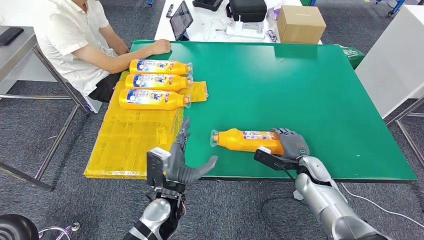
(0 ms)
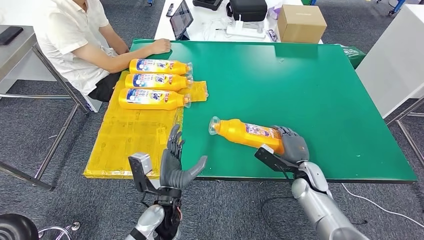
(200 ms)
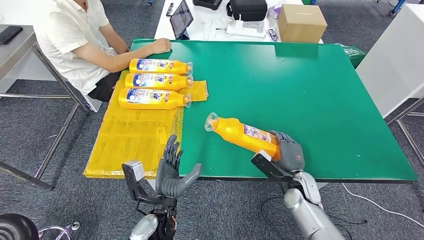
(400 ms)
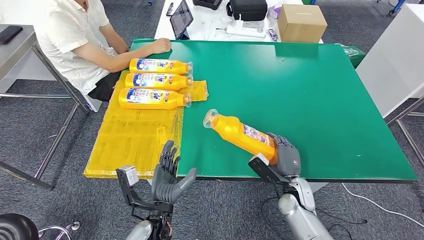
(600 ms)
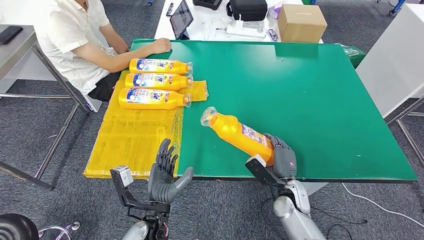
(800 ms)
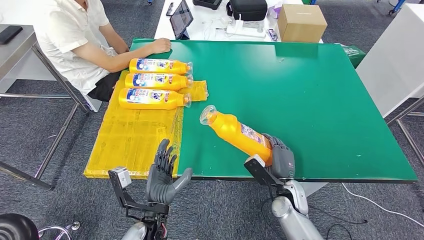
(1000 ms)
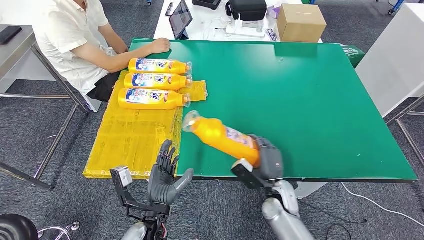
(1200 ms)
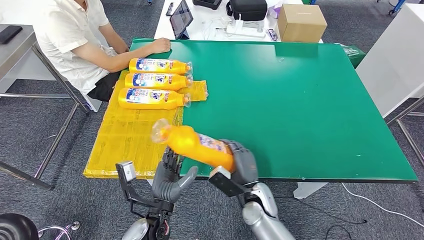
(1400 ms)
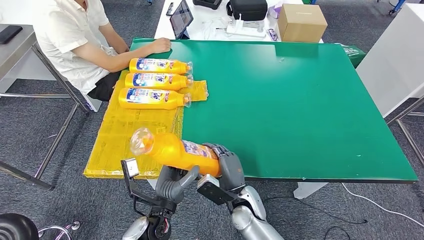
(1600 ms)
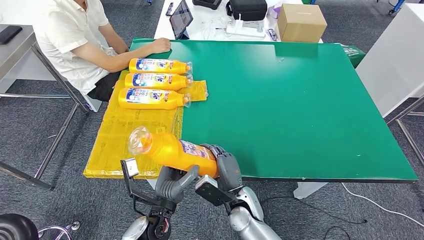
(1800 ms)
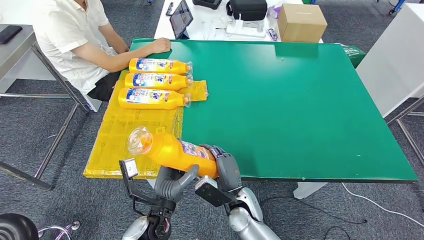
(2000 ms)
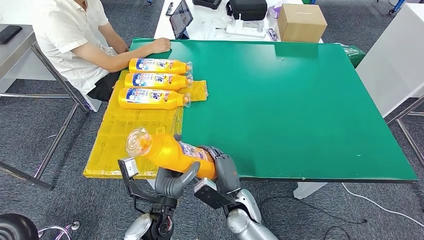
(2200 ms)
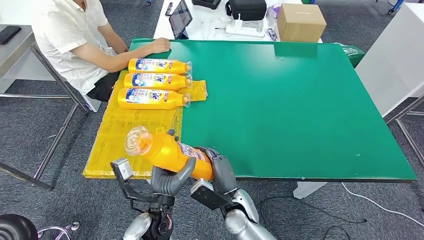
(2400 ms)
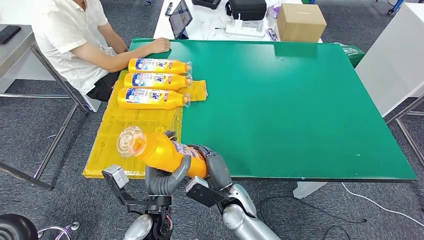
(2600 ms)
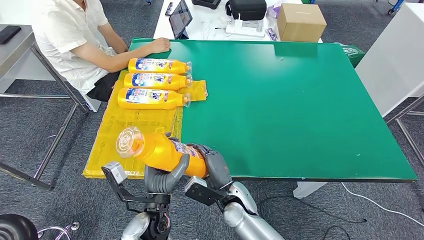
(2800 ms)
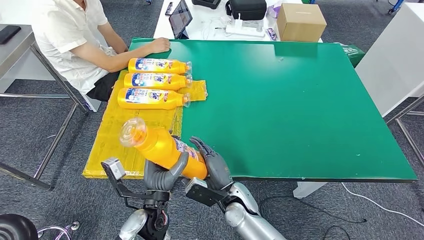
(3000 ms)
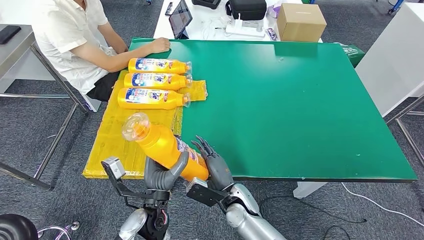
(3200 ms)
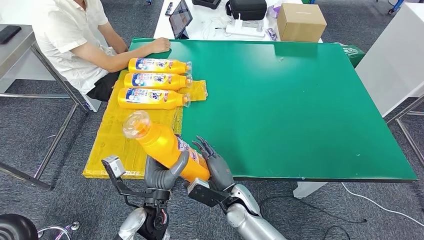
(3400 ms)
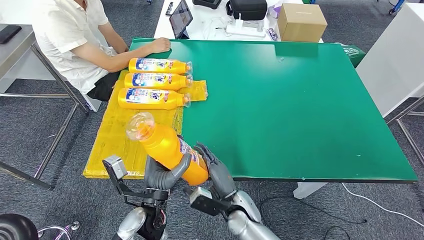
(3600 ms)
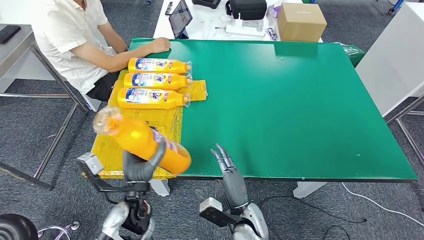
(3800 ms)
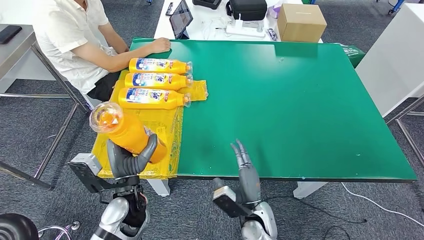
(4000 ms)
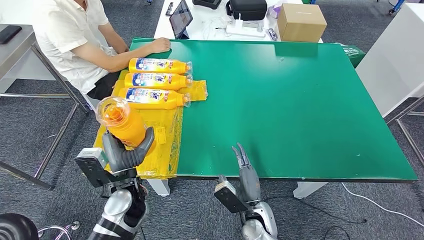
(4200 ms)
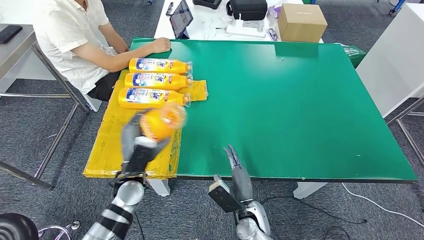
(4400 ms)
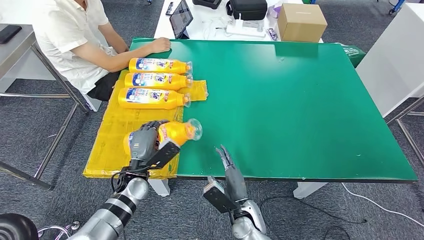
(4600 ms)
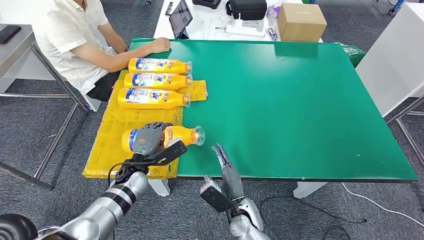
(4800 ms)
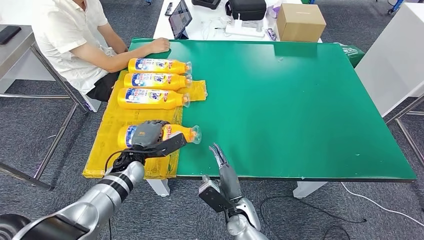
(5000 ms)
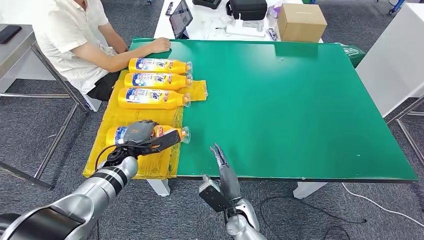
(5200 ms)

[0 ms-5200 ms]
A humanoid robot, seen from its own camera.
Step, 1000 ms to 5000 ms: Flip the bottle to face forward.
0 ms to 1800 ms: The left hand shifts by some 5 cm. The right hand moves to the left and backward, approximately 25 cm.
3400 ms to 5200 ms: The left hand heads forward and to the left, covering approximately 20 cm.
